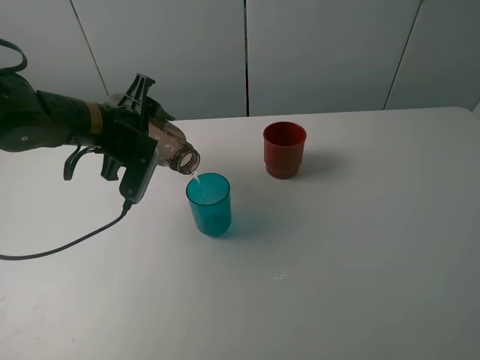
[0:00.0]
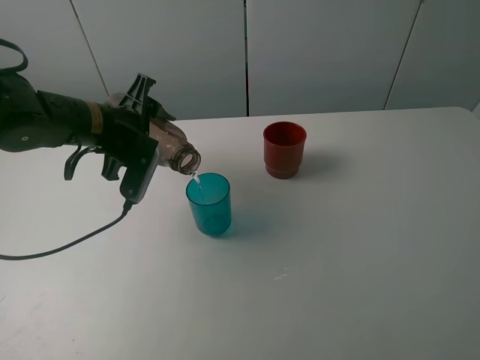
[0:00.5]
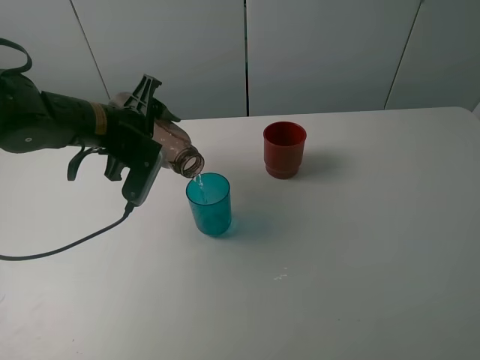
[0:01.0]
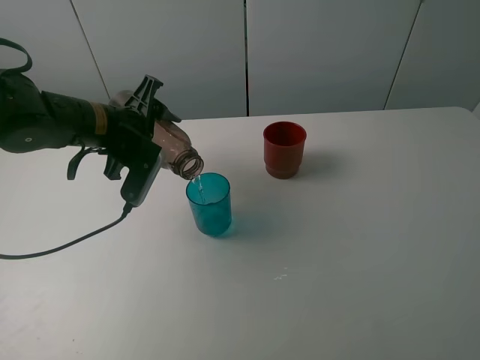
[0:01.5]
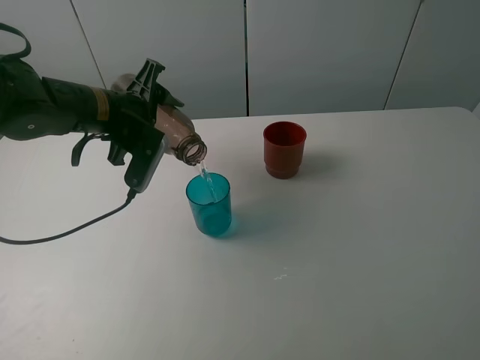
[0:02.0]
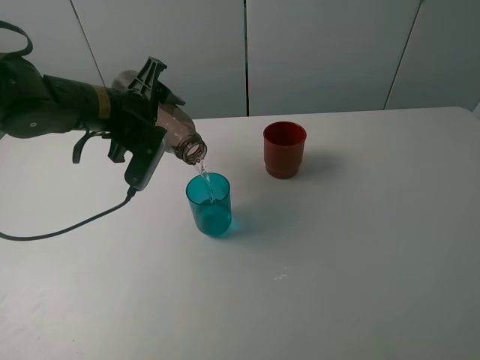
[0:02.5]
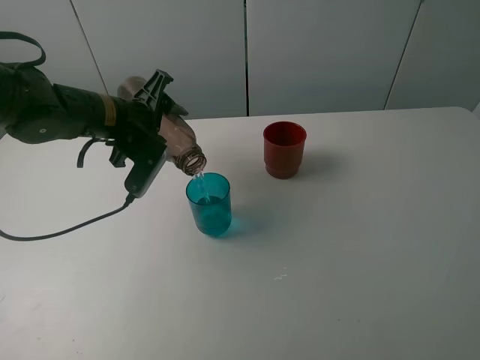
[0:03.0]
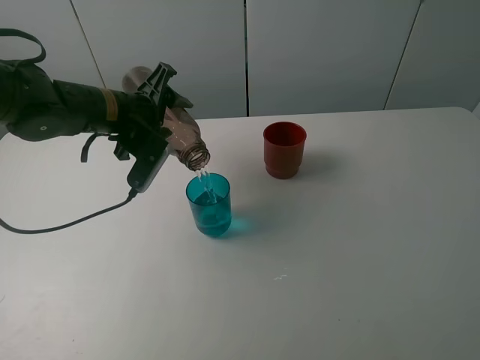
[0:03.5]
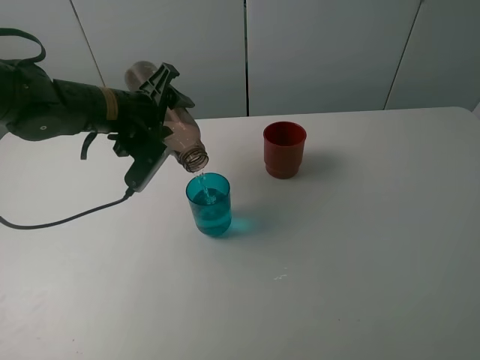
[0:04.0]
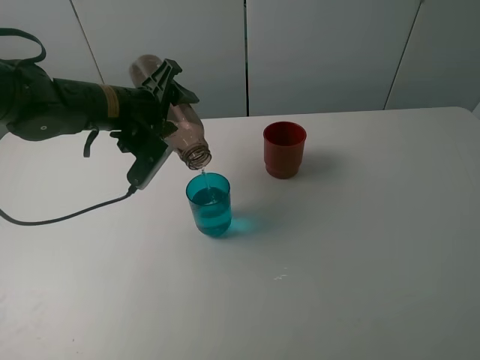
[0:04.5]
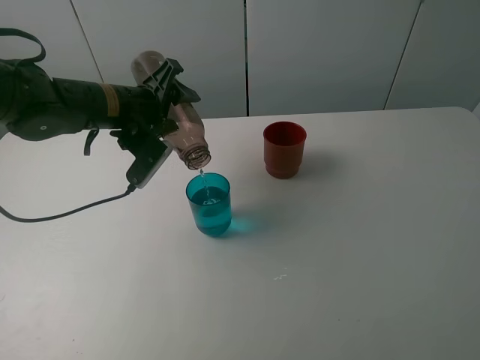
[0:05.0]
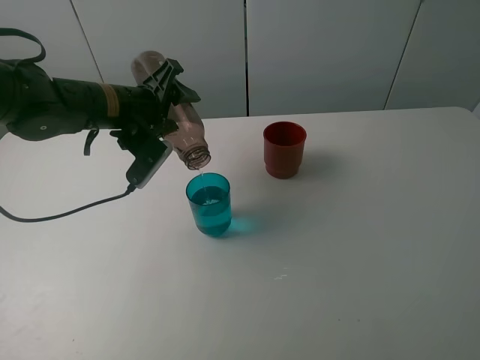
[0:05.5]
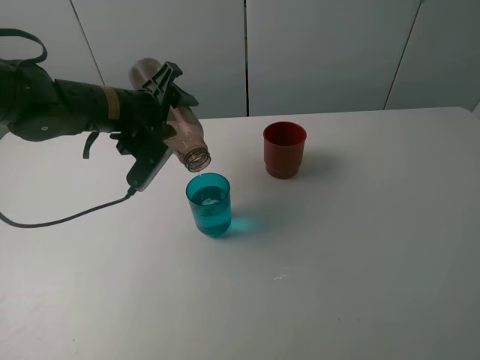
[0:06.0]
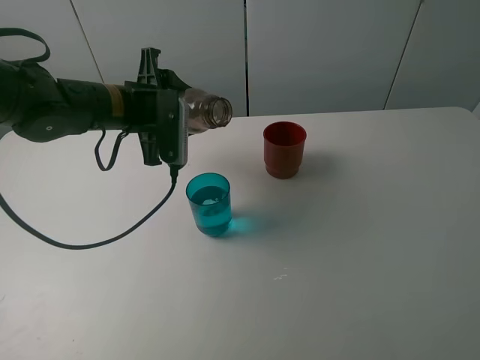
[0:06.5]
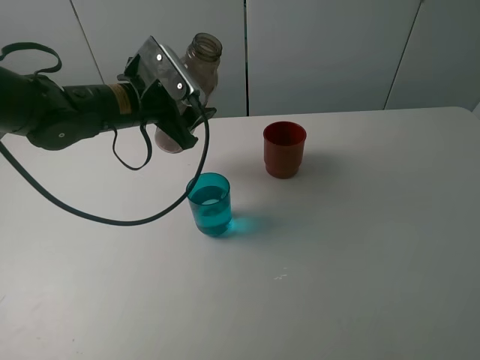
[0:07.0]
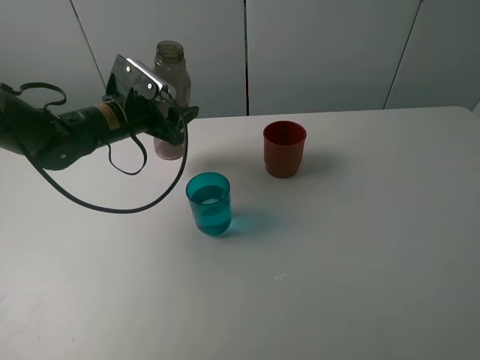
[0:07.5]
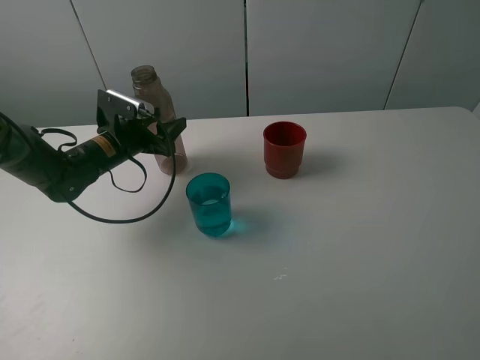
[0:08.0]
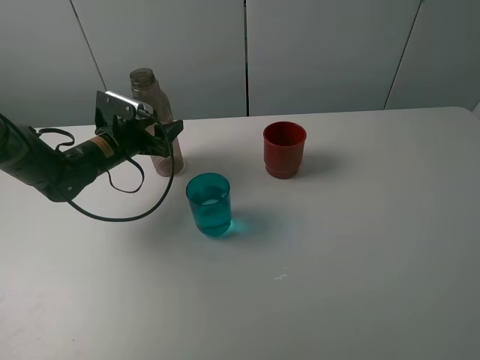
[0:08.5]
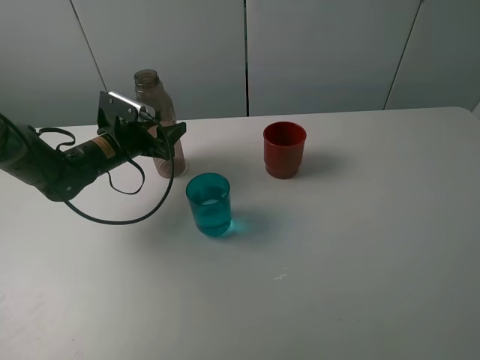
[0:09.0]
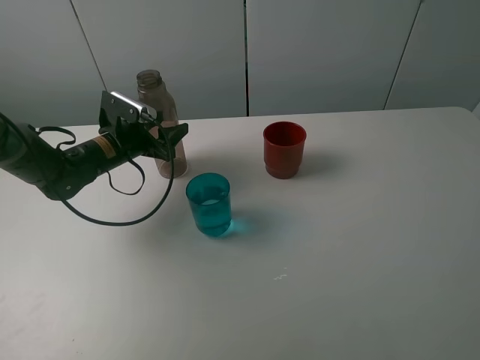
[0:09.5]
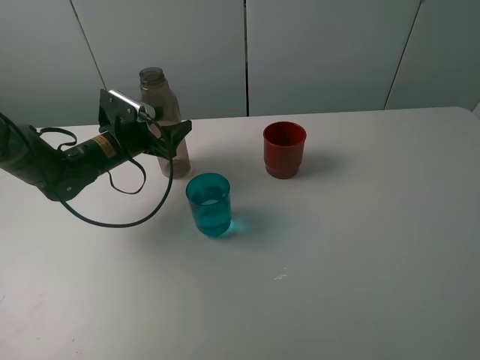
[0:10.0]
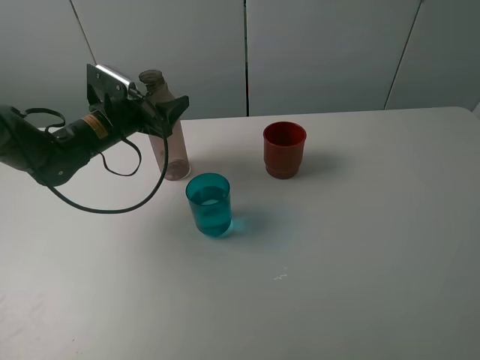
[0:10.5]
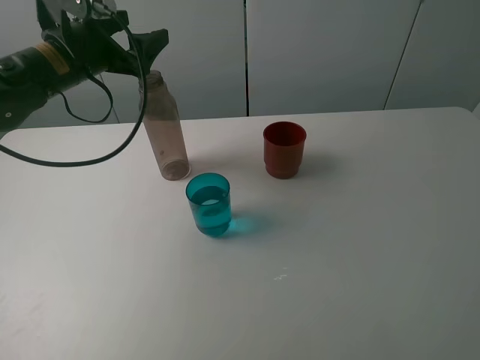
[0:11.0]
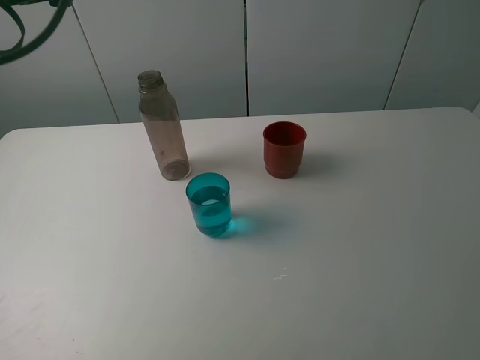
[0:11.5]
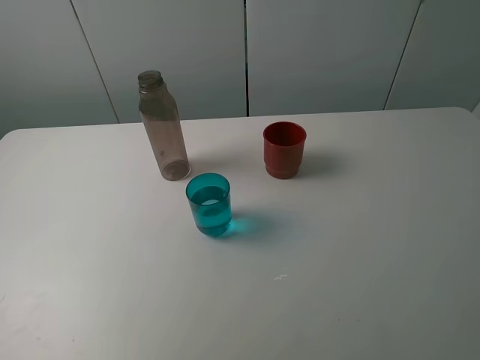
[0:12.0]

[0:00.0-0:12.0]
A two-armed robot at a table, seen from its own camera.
Task of the whole recording: pick up the bottle and pour water into the cup, then pick up the cup containing water and pour it into another cup.
Step, 0:00.0 to 0:06.0: Pour water from brown bottle to blue cup with the left gripper.
Step, 0:06.5 to 0:10.5: Place the brown bottle with the left gripper.
0:00.0 to 0:04.0: There are only small adjustments of the grippers.
0:04.0 to 0:06.0: The grippers move only a little.
0:06.0 to 0:08.0: The left gripper goes some 10 cm downward and to the left.
0:08.0 to 0:10.0: The left gripper opens.
0:10.0 to 0:12.0: The left gripper heads upward, backward and to the left, covering about 35 cm.

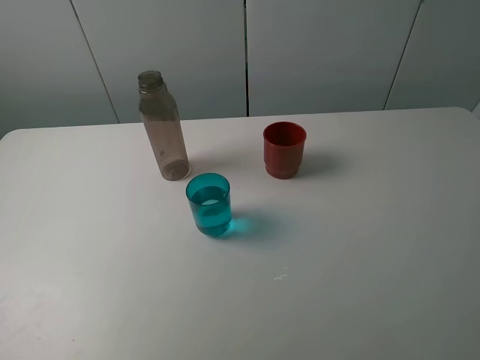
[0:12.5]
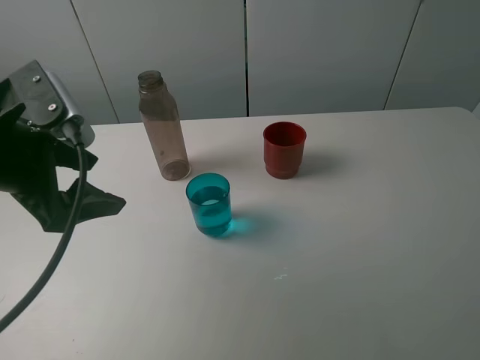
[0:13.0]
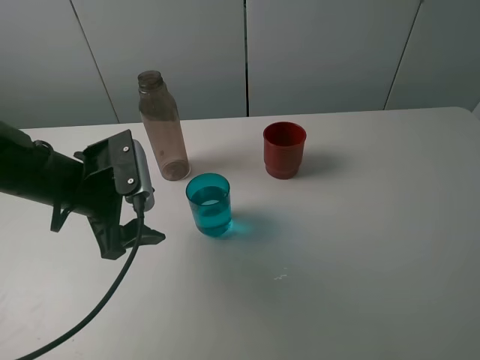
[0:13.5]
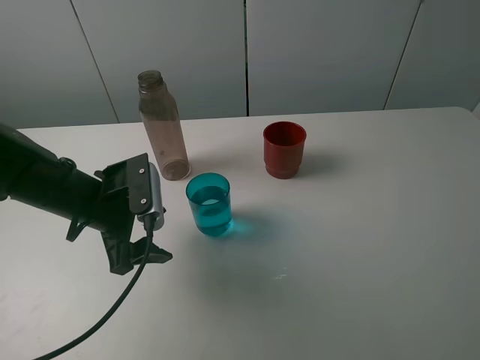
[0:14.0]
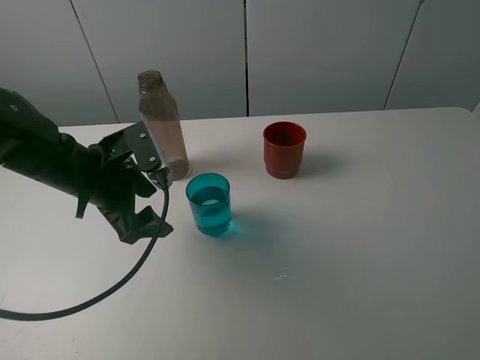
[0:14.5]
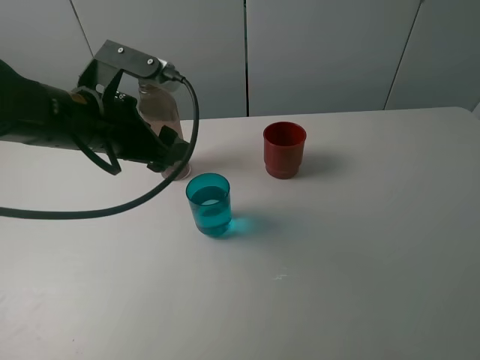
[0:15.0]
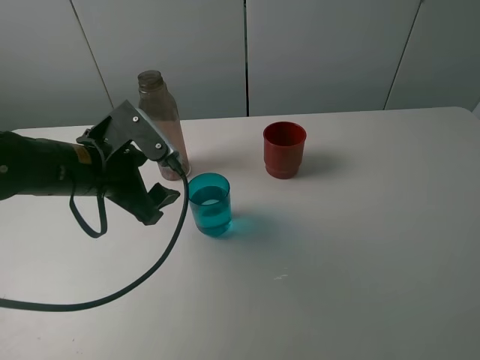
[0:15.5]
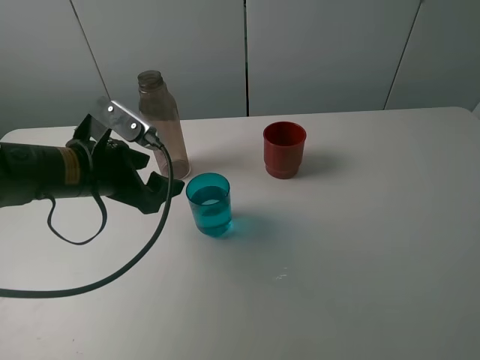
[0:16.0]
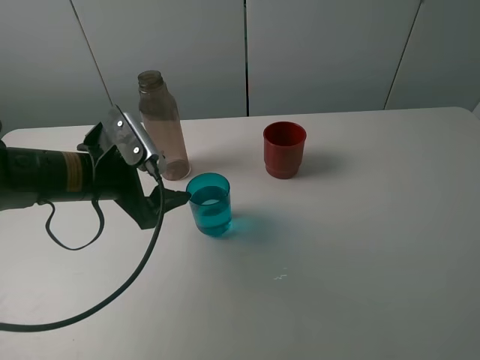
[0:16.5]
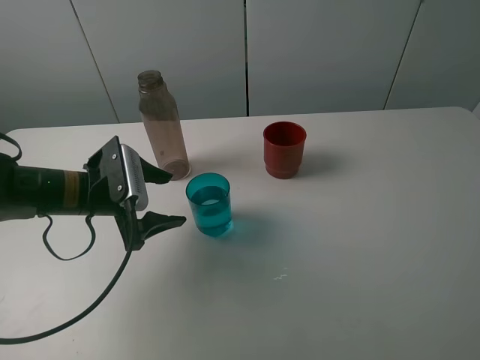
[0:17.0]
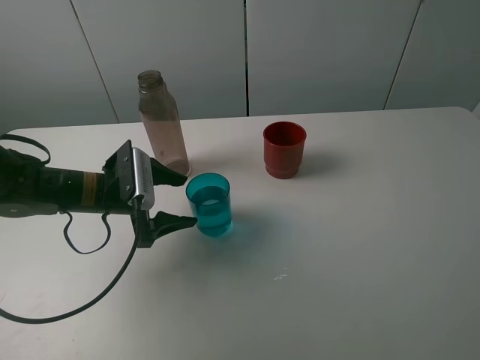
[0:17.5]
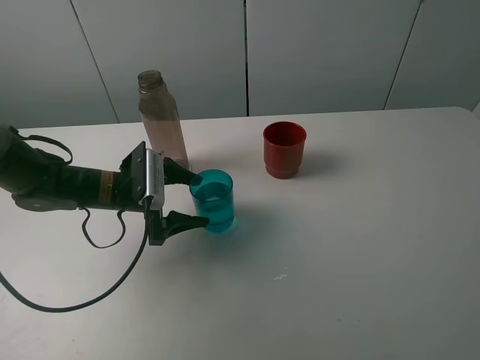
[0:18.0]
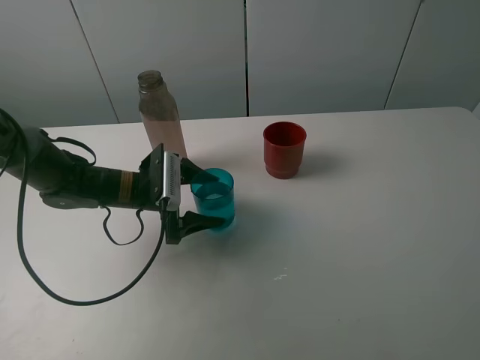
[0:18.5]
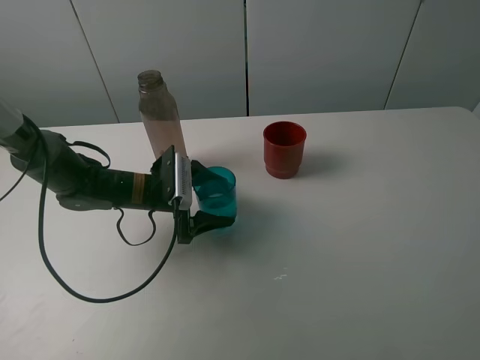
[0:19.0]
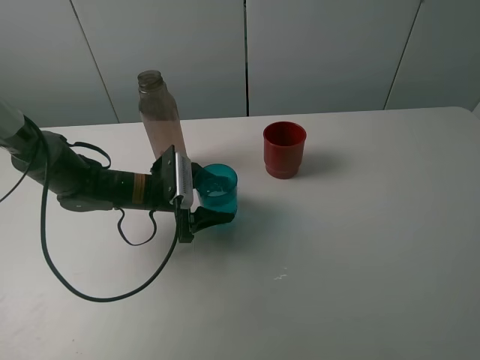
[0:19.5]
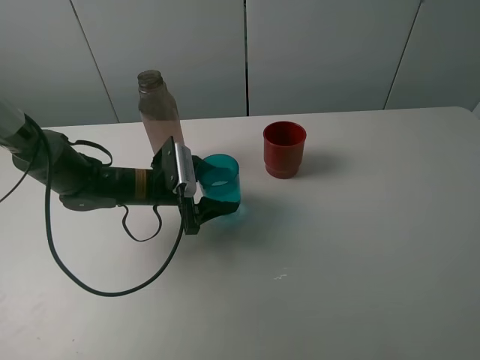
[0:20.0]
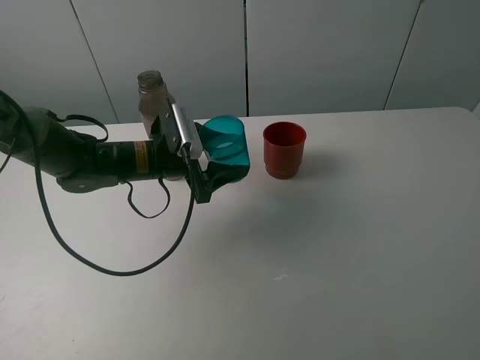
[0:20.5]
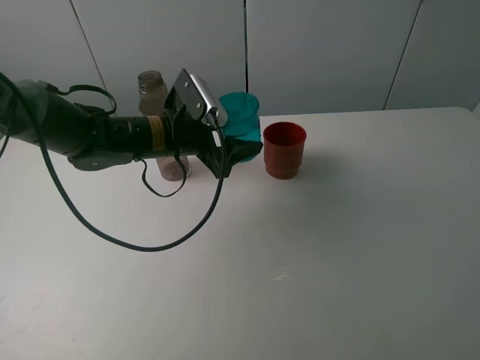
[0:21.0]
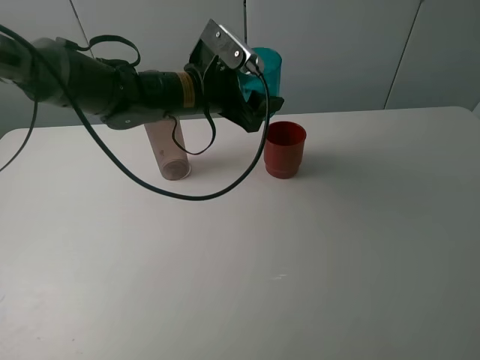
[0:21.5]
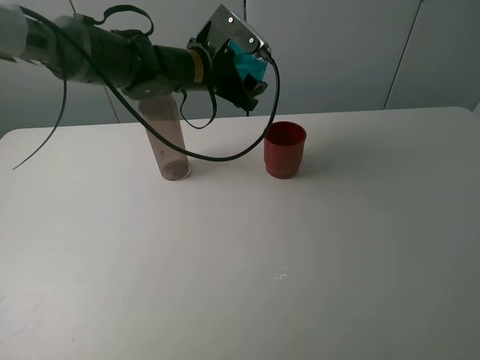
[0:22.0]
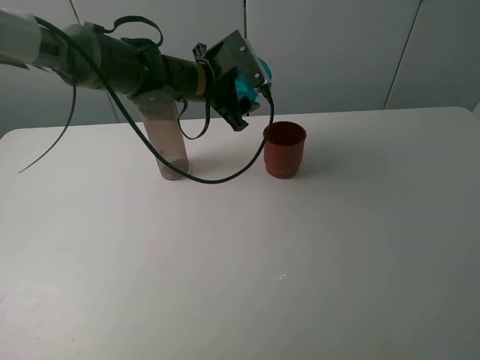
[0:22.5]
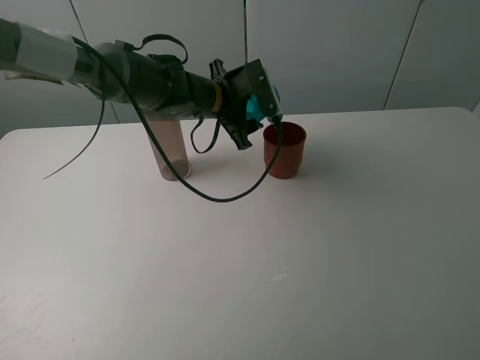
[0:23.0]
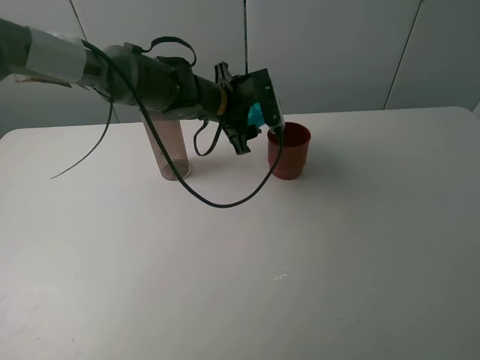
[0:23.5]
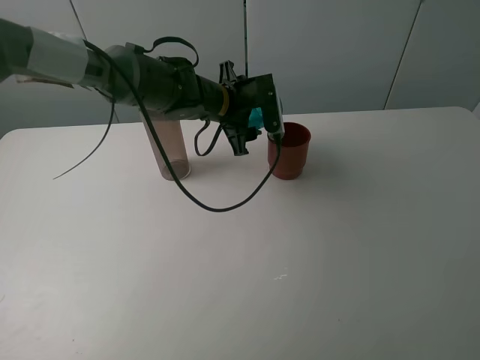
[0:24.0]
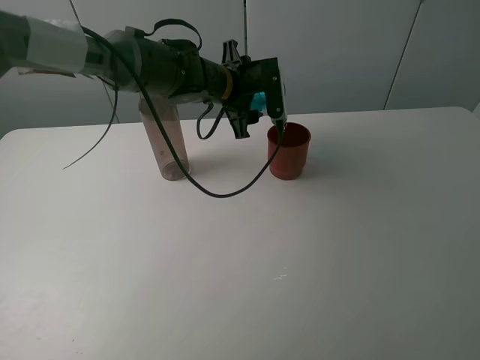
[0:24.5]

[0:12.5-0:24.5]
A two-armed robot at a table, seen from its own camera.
Task of the whole recording: pick up the bottle and pour water into the cup, then pick up the cup containing water and pour it into another cup.
Step, 0:12.5 to 0:19.5: Grasp the blue cup with the left gripper.
0:12.5 to 0:14.5: The left gripper shifts roughly 25 cm downward, to the right and forward.
0:16.5 to 0:18.5: The left gripper is displaced downward and forward by approximately 10 cm.
0:18.5 to 0:20.5: The left gripper shifts some 5 cm upward, and closes.
0:20.5 to 0:22.5: The left gripper heads forward, upward and to the right, covering roughly 15 cm.

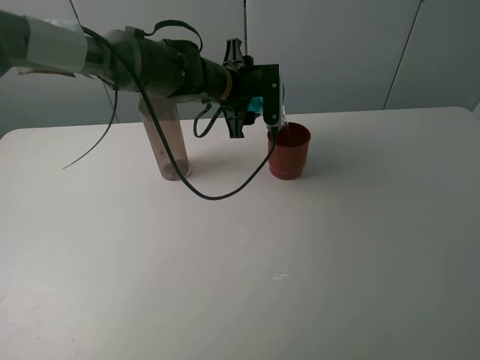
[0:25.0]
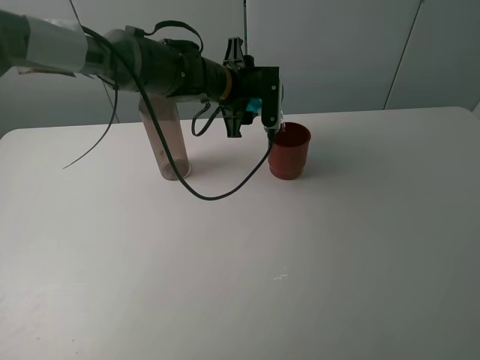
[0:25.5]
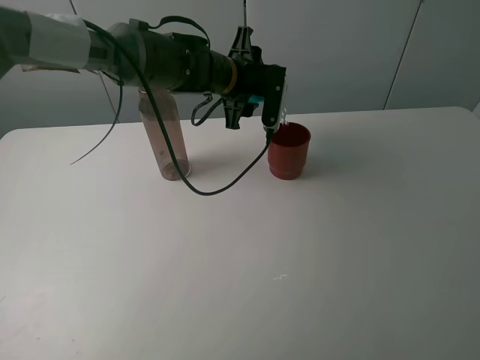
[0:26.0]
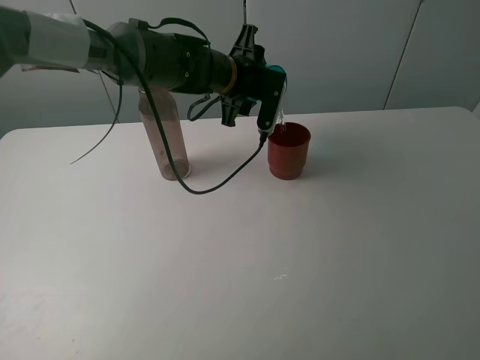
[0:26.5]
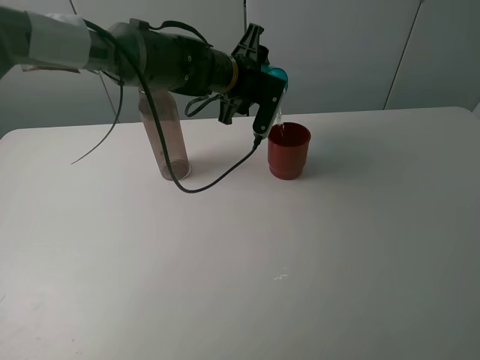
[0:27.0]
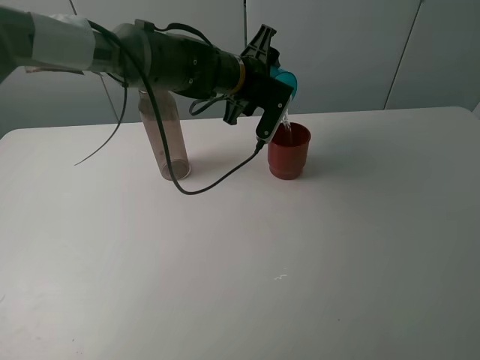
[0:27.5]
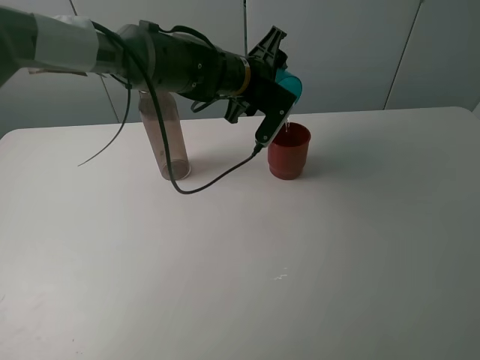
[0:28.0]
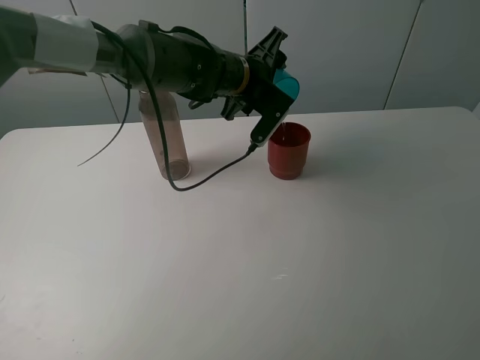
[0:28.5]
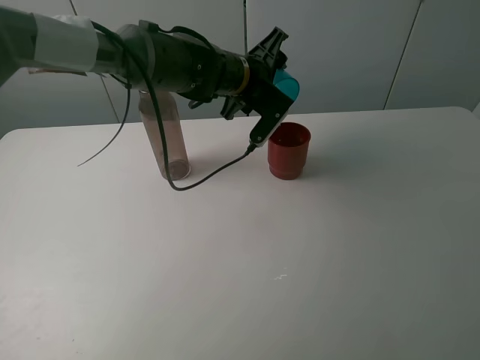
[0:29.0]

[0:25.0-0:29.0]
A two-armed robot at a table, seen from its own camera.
Task of the whole recording: pick up the bottle and pour water into the cup, then pick up the cup containing water and pour it into another cup.
0:27.0 to 0:29.0: There are only small adjustments of the grippers.
